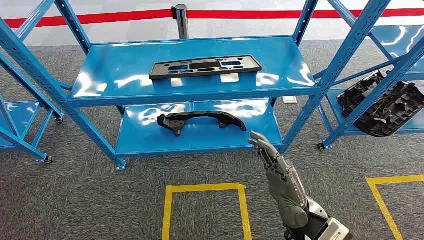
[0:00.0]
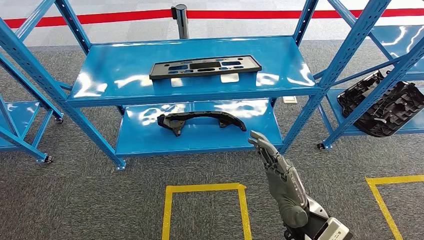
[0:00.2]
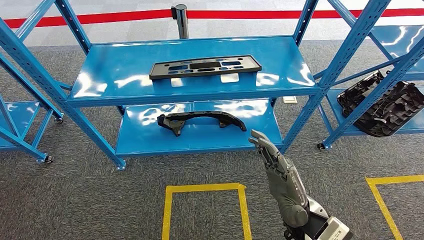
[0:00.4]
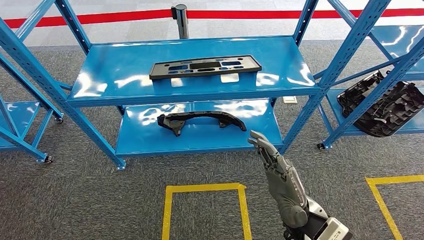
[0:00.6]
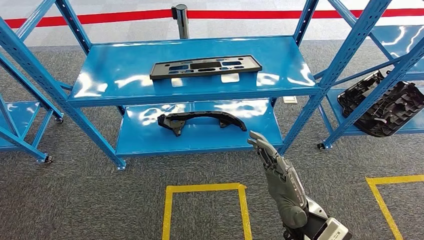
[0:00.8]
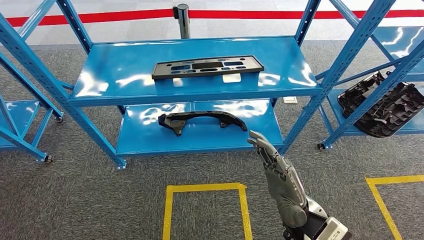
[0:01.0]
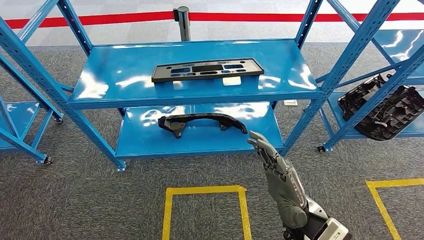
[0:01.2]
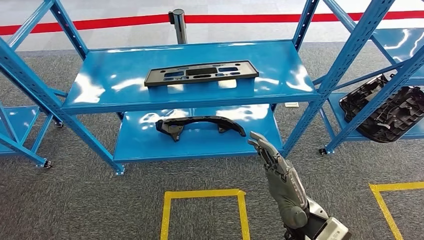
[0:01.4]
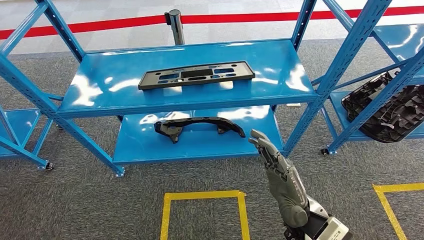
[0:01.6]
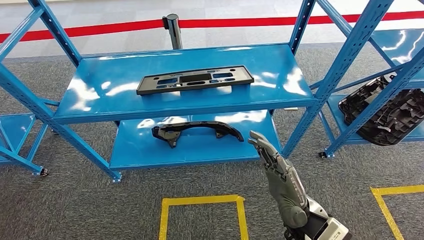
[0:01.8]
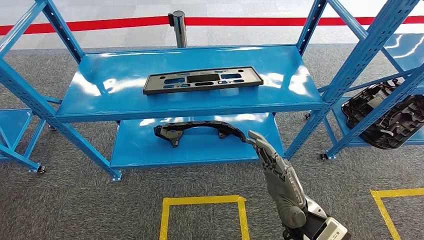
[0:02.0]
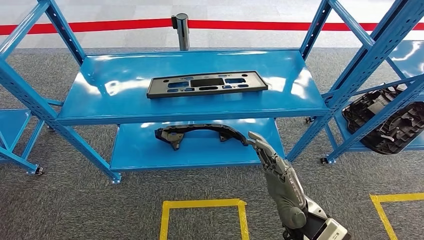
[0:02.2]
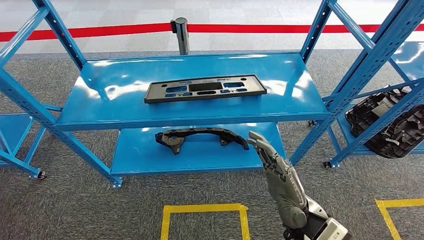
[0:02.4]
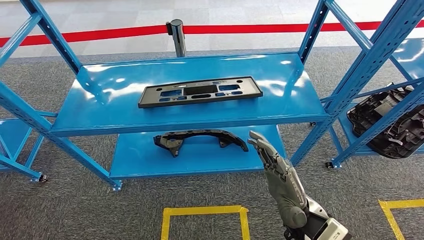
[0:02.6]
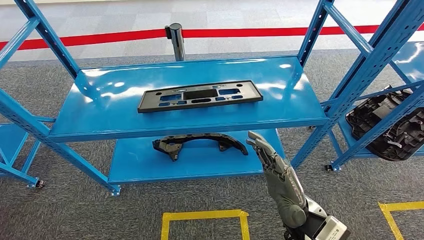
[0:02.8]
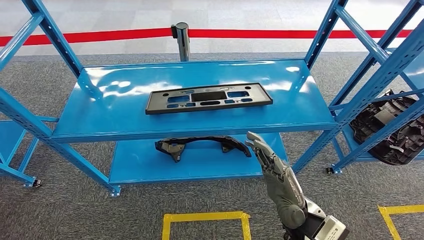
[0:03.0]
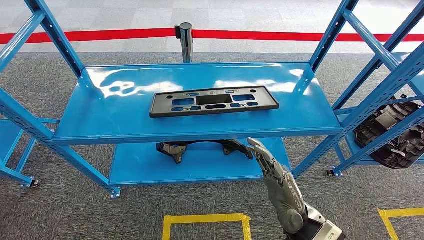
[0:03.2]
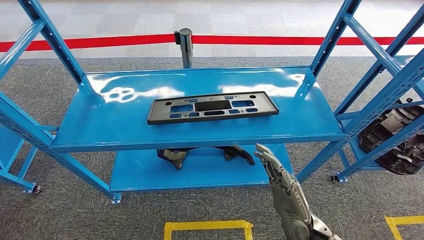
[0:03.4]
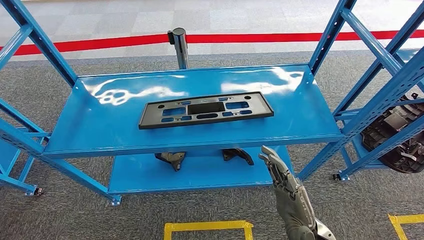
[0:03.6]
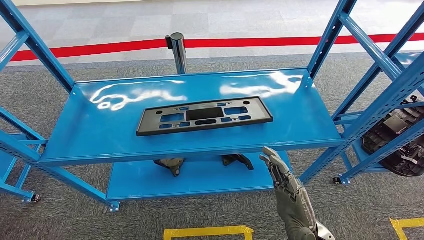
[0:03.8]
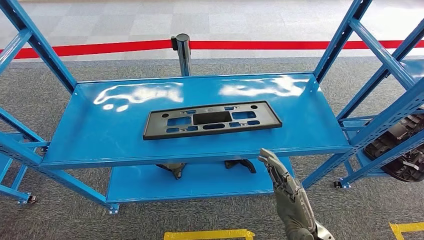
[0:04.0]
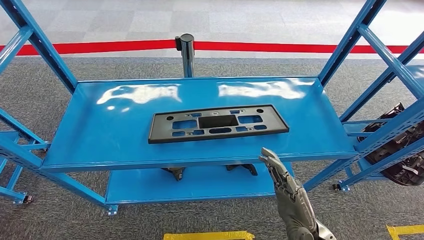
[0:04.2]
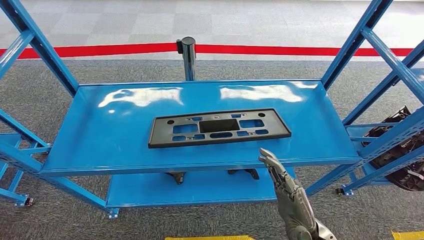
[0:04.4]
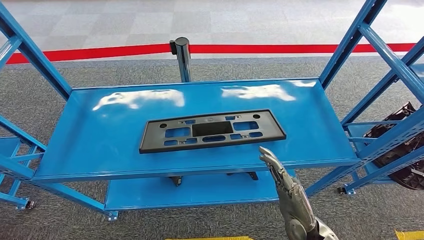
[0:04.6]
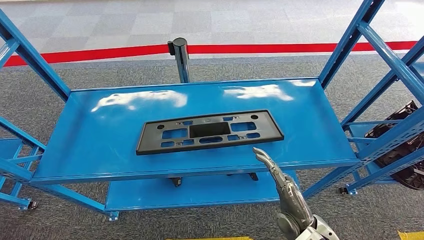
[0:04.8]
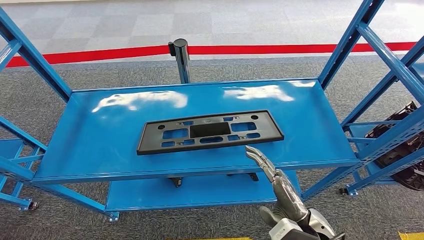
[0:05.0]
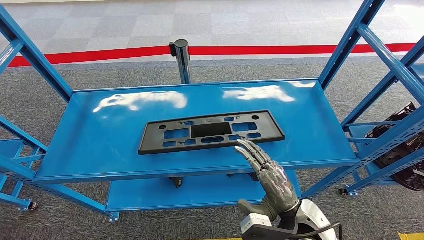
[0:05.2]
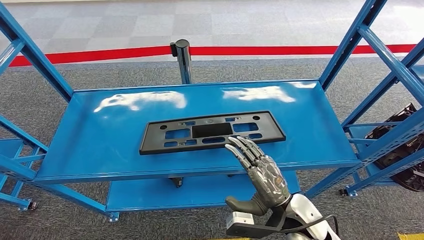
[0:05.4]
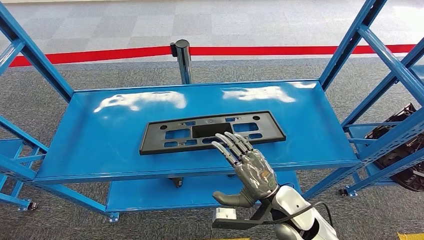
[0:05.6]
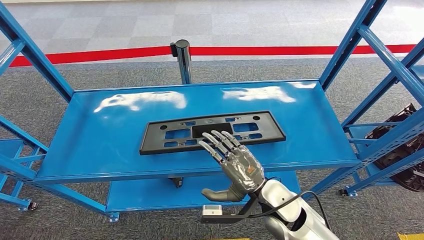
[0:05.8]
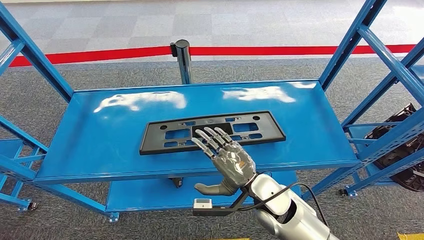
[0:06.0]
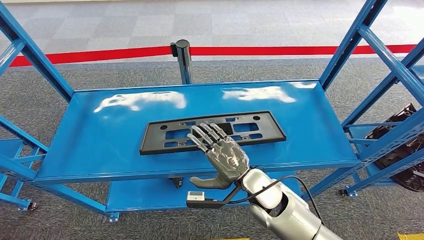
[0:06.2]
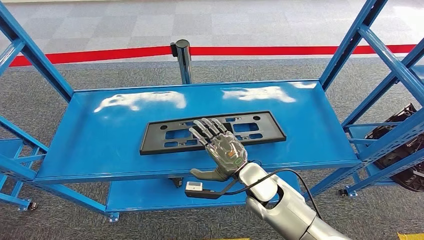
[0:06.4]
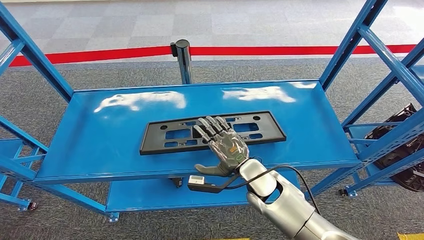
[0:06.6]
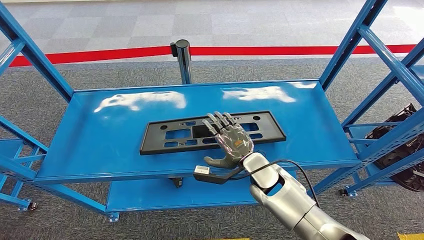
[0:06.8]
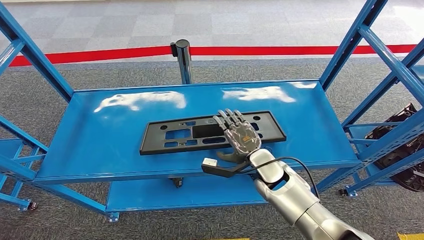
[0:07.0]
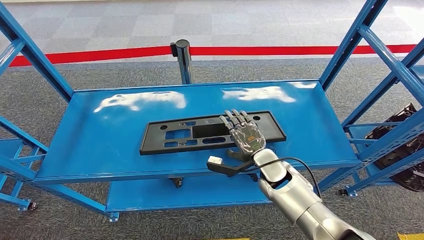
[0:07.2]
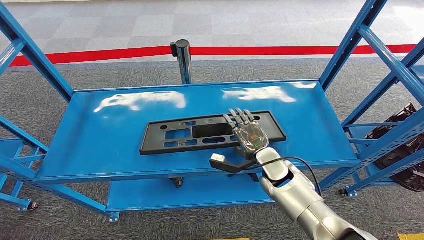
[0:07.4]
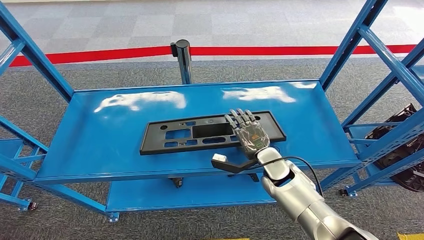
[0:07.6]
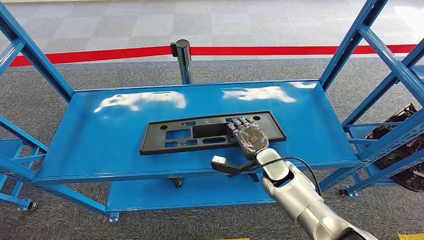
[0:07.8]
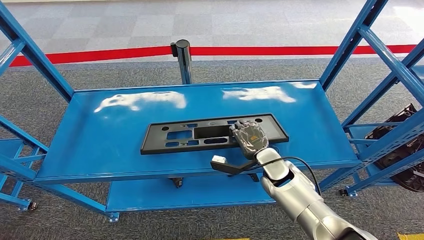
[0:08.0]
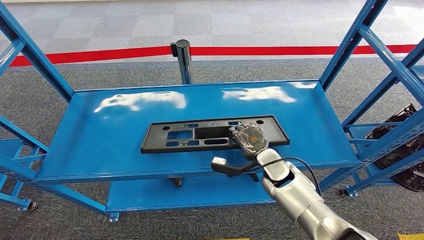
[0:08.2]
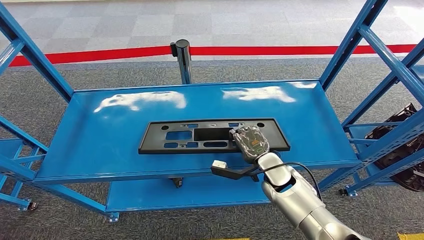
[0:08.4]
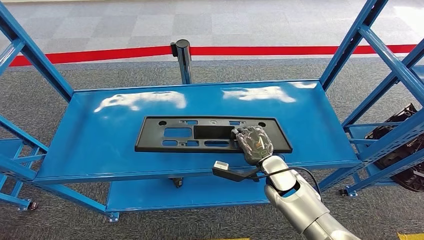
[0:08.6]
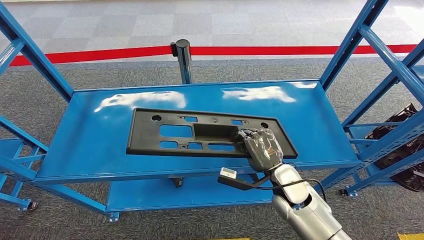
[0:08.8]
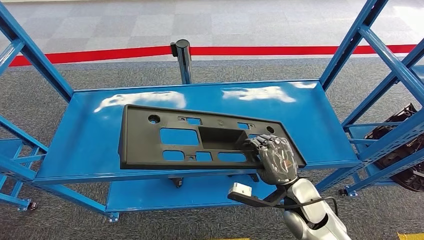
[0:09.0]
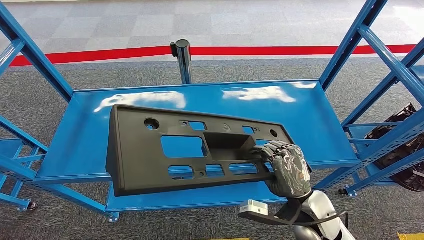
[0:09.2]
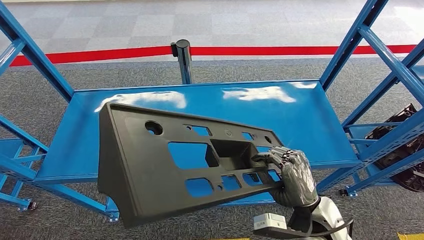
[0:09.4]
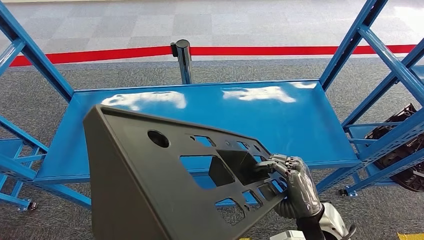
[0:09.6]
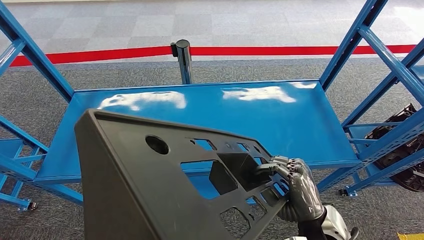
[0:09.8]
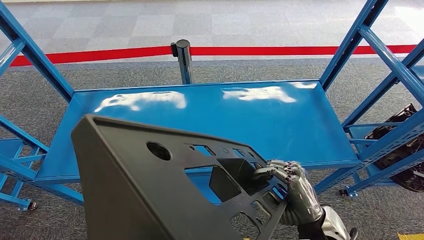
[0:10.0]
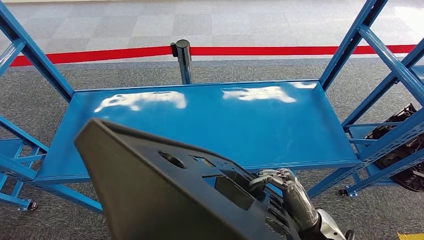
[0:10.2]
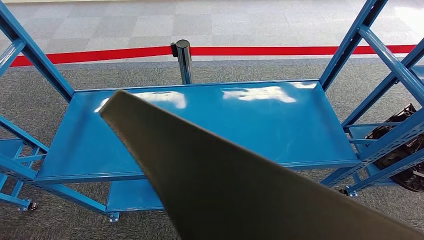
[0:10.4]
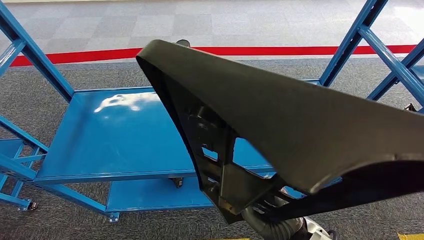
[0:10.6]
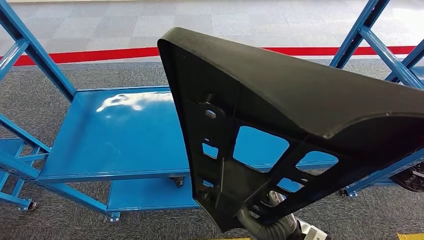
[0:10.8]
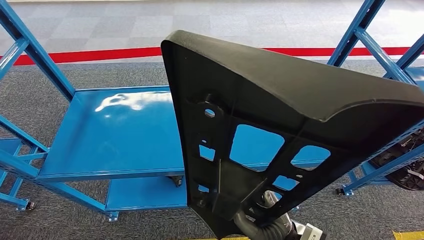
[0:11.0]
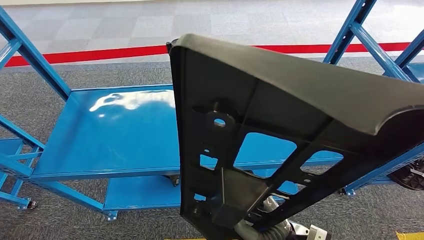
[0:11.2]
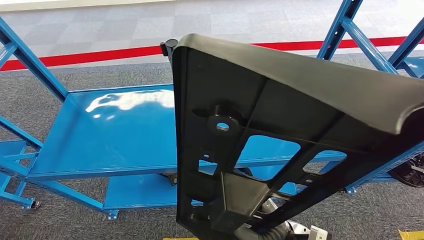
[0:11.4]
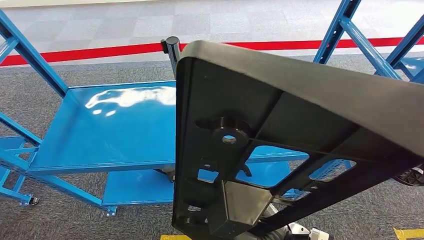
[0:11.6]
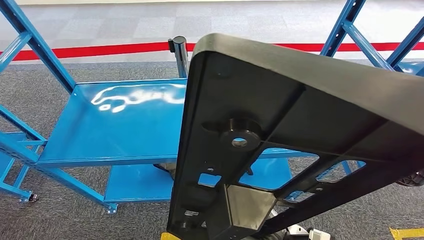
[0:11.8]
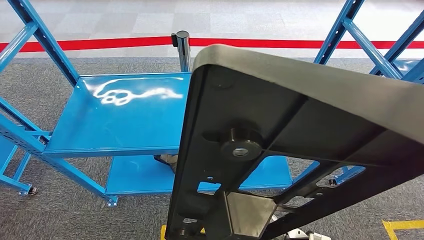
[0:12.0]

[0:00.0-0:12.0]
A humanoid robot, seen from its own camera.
Step, 0:00.0 to 0:10.2: Pick up the large material from the shelf.
0:06.0 to 0:07.6: The right hand travels forward by about 10 cm.
0:07.6 to 0:09.0: The right hand heads backward, covering some 10 cm.

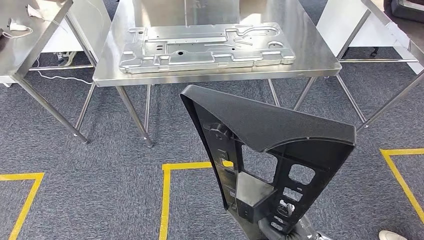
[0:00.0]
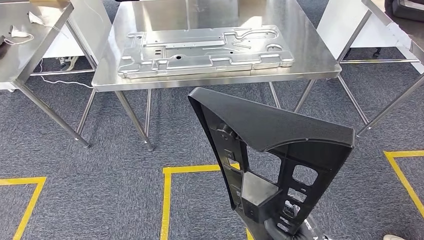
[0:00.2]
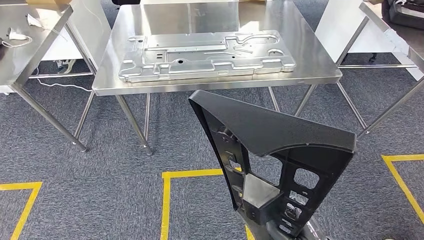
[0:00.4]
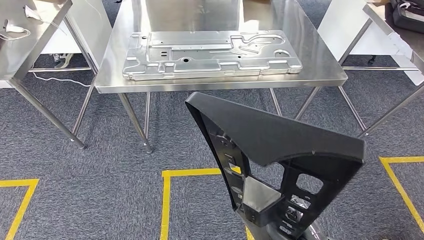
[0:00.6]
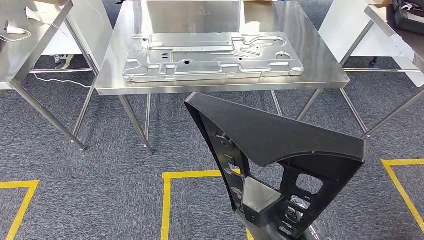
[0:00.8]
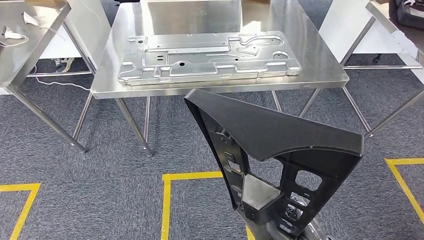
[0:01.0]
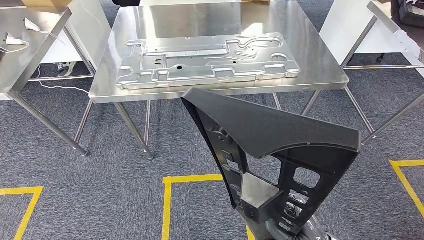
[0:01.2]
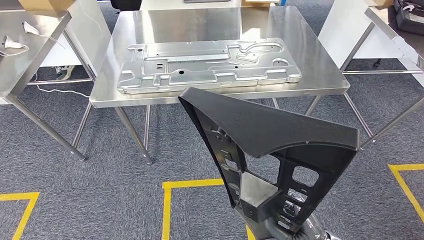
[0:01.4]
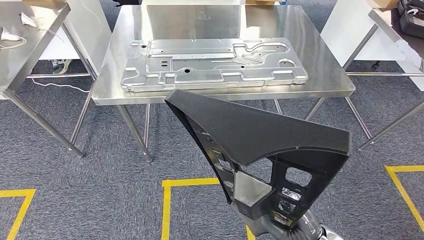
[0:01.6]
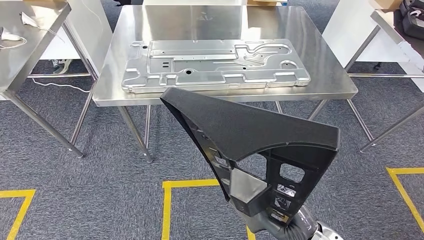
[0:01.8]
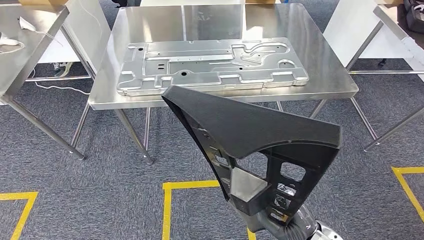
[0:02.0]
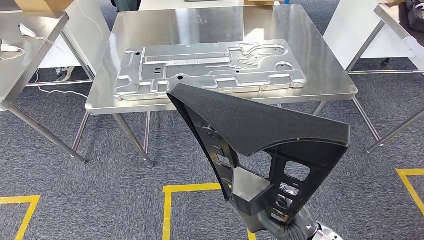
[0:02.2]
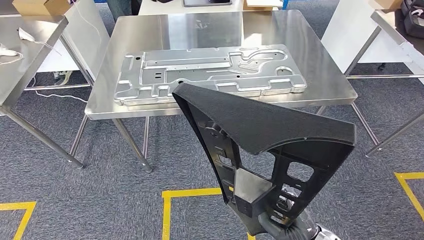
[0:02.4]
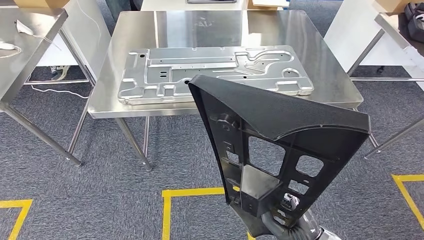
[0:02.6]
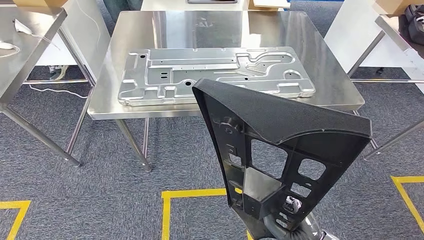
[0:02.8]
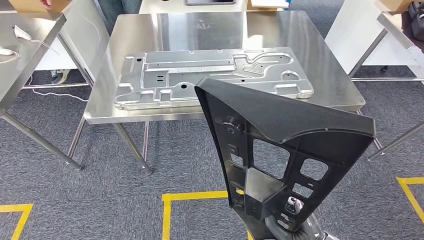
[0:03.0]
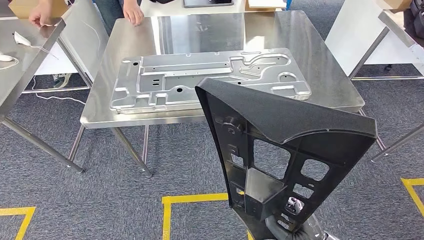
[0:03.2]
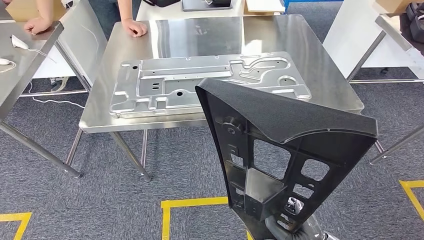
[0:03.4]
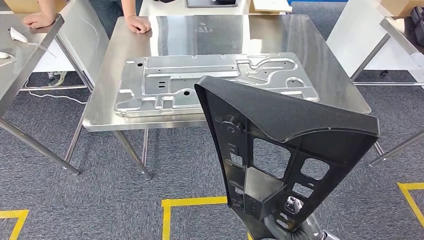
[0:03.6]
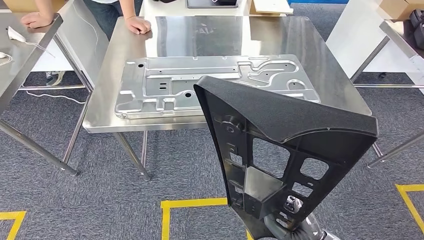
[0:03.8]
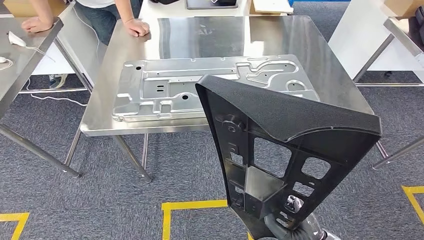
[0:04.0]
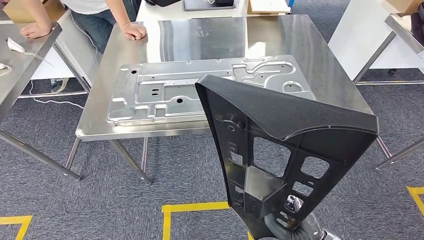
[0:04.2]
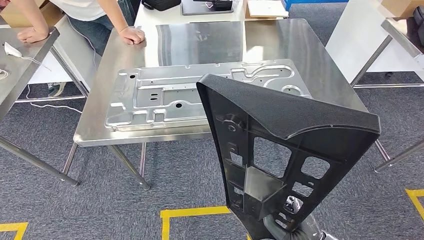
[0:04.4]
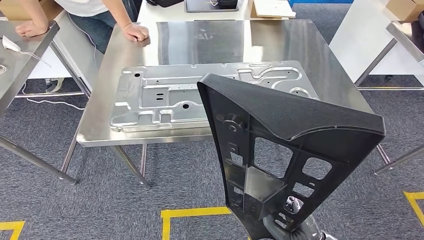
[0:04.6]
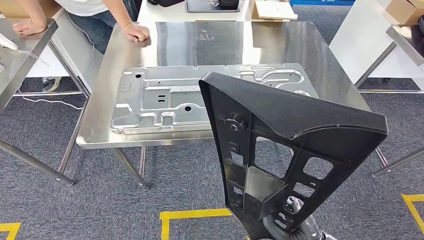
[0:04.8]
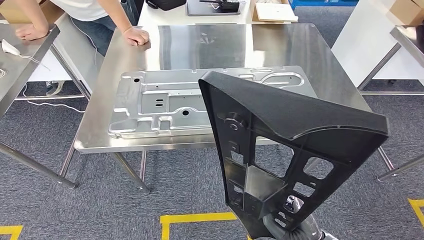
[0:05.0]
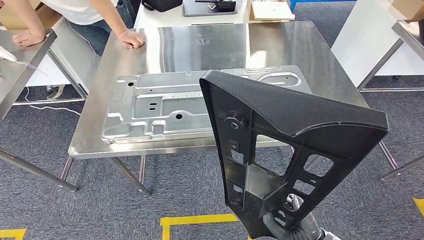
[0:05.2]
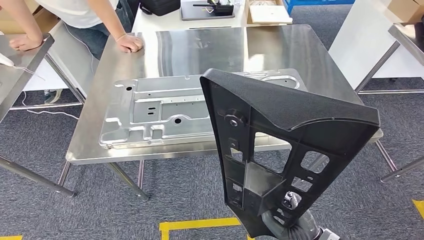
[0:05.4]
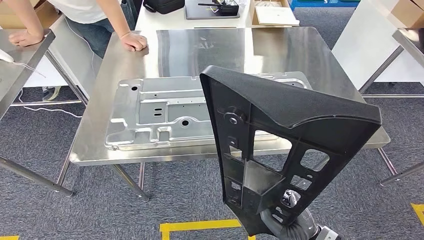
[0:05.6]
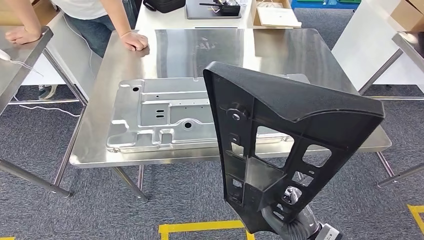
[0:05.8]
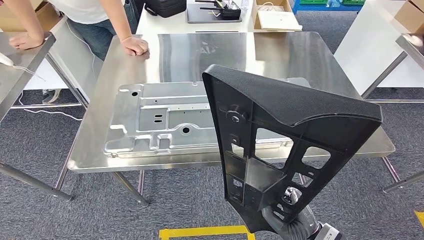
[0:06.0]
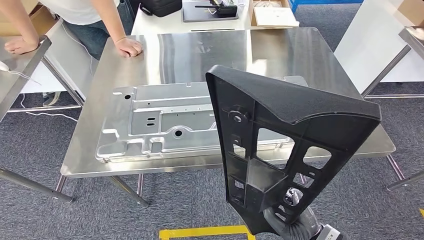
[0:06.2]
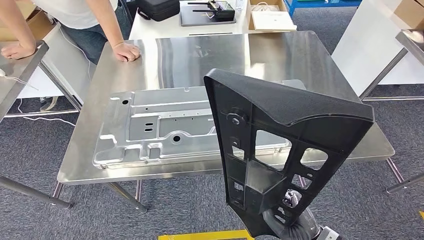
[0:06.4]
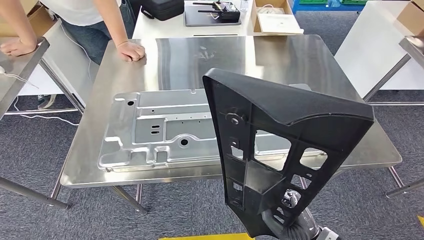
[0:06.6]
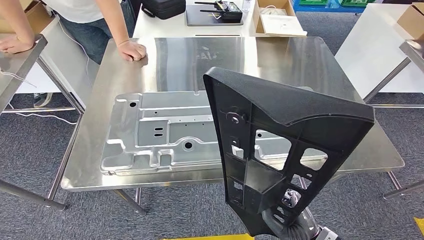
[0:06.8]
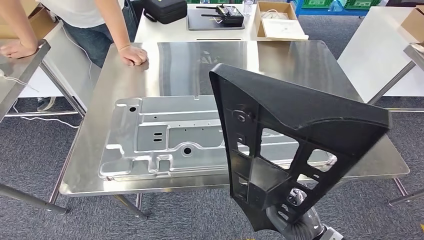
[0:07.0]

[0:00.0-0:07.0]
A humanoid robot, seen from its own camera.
Step, 0:00.0 to 0:04.8: Move the large material to the workbench.
